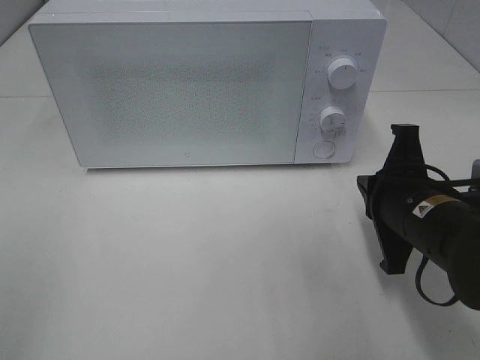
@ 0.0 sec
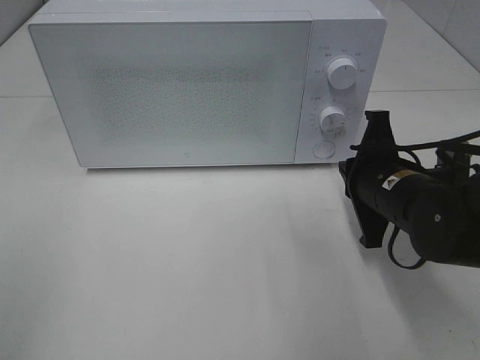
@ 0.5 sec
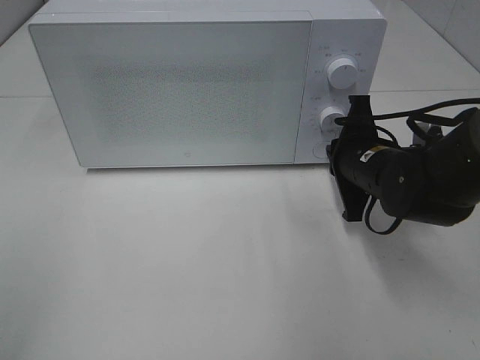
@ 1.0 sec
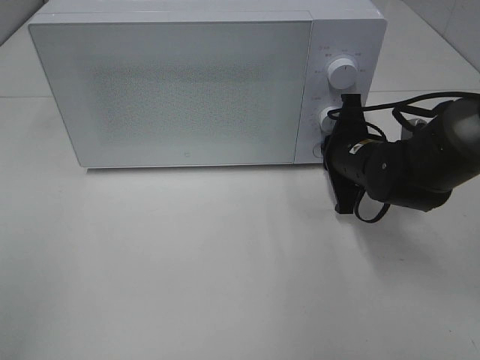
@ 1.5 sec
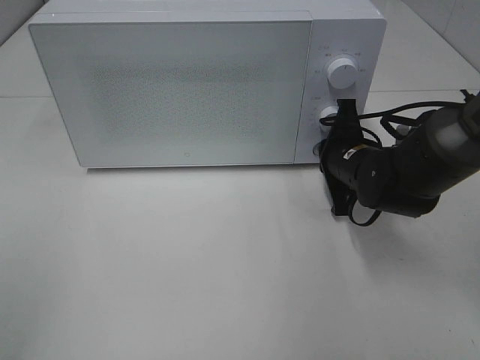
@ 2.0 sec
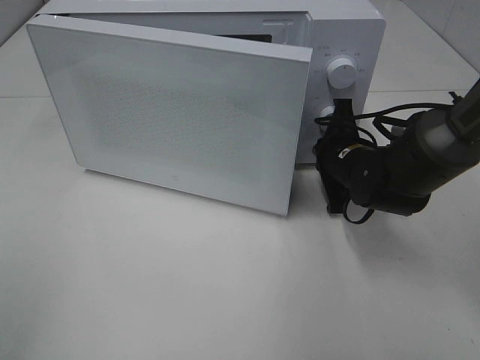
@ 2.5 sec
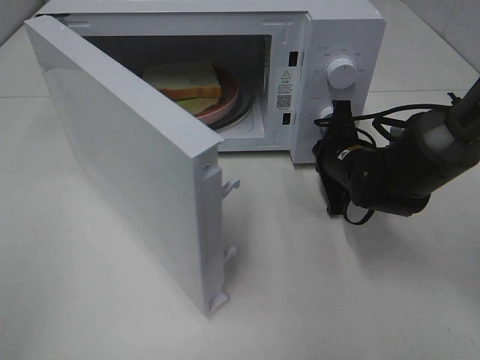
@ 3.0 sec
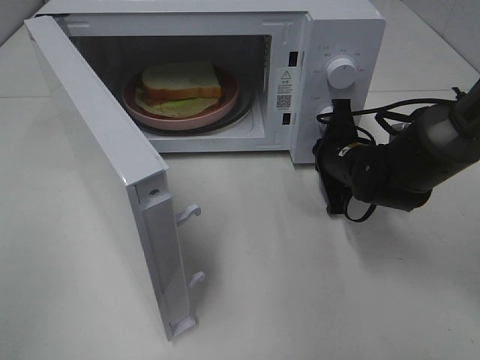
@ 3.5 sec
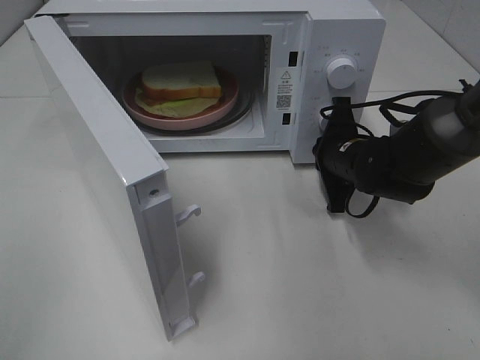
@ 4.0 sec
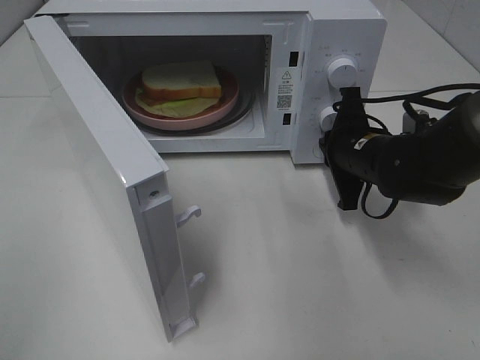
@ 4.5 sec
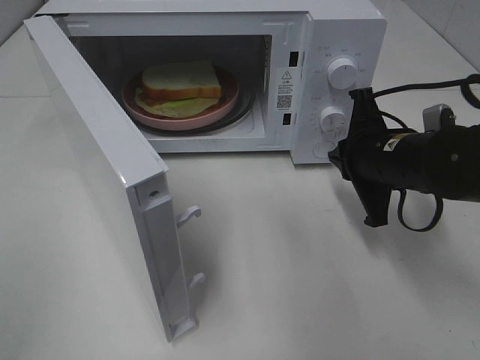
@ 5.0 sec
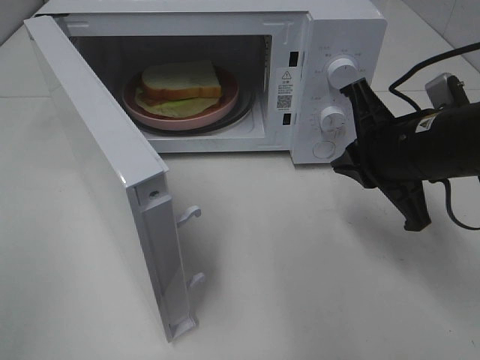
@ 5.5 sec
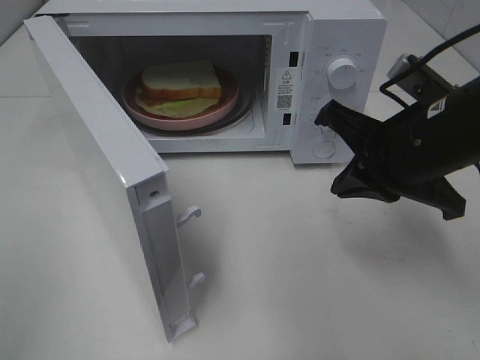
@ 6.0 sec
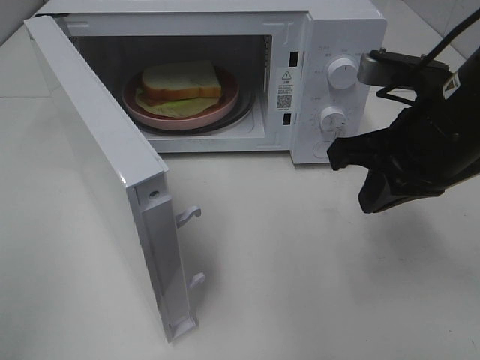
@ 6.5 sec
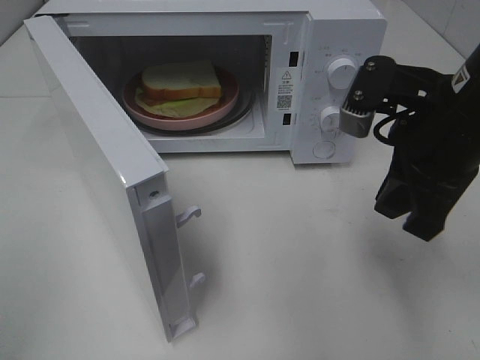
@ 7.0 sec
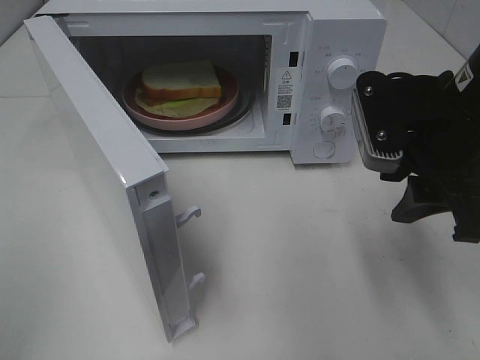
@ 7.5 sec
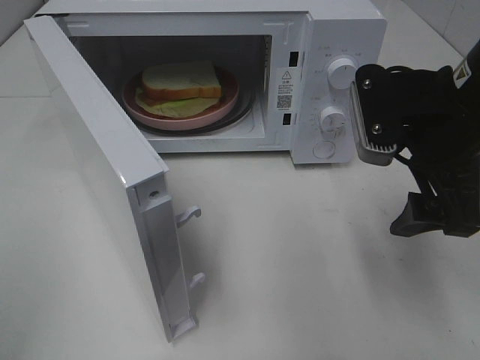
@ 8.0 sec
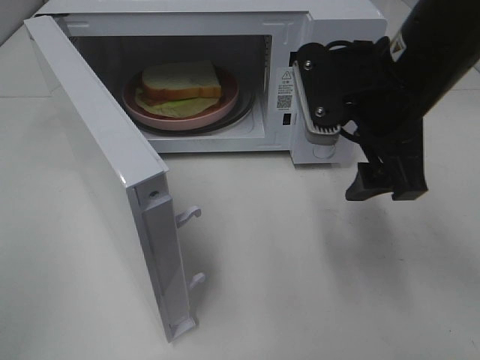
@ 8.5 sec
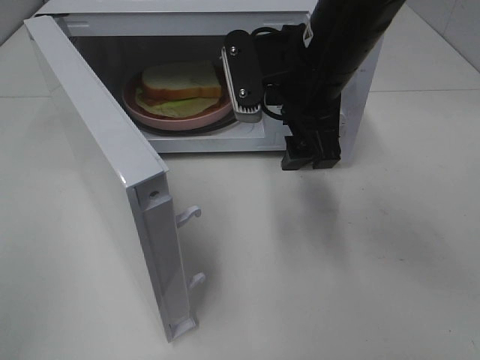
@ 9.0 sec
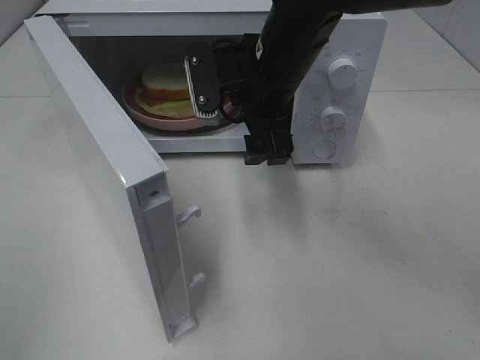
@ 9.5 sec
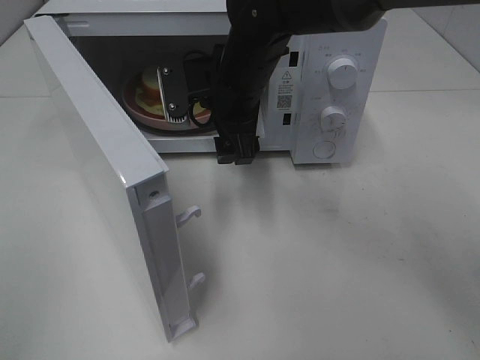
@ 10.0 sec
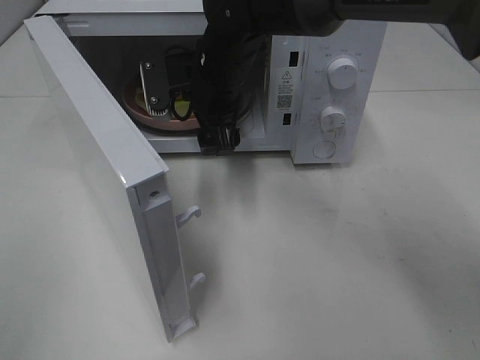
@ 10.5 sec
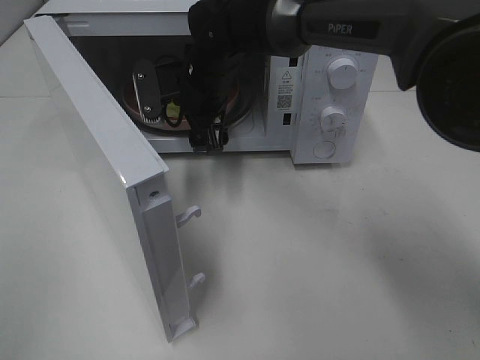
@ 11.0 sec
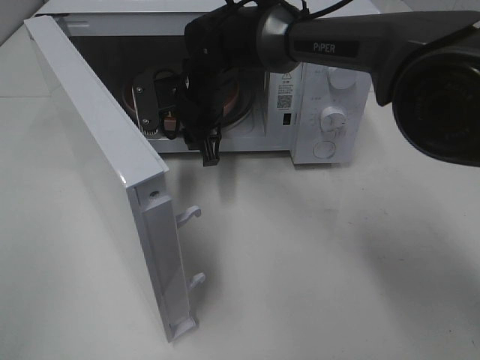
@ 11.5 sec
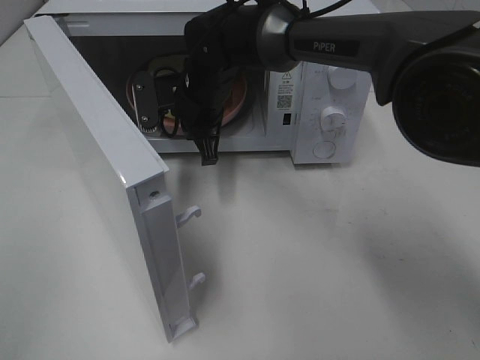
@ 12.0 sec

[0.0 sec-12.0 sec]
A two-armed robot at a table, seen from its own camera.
Task of the whole recording: Heat Sandwich.
Step, 0.0 sec to 4.5 sec: Right hand: press the switch.
Step, 5.0 sec to 11.5 sec: Right hand: grab the plate with the sandwich.
0.0 sec to 2.0 sec: The right gripper moves forward, roughly 15 cm.
4.0 sec to 6.0 sec: The right gripper heads upward and backward, covering approximately 15 cm.
6.0 sec to 8.0 sec: The right gripper opens up.
8.0 sec to 10.0 sec: The right gripper heads to the left and forward, covering approximately 20 cm.
10.0 sec to 12.0 sec: The right gripper shifts by about 10 cm, and closes up.

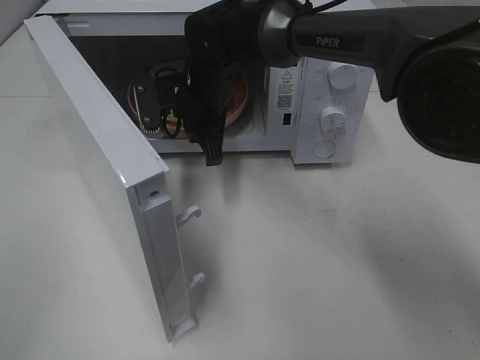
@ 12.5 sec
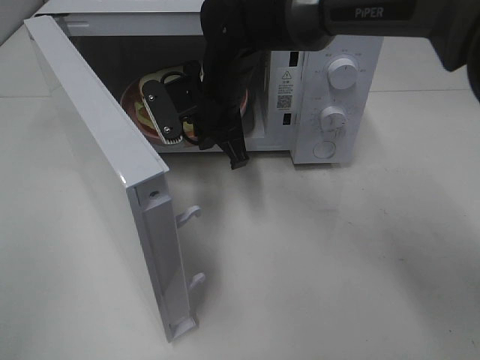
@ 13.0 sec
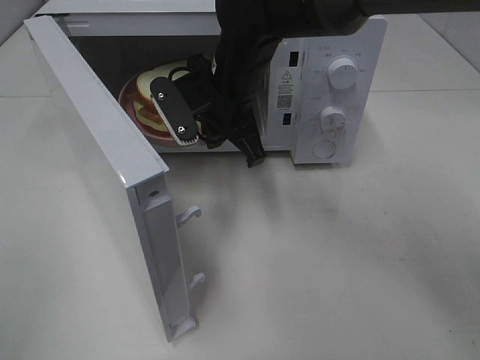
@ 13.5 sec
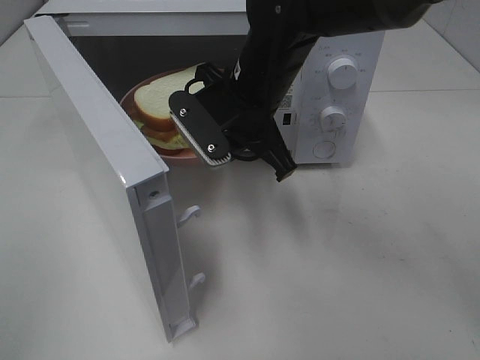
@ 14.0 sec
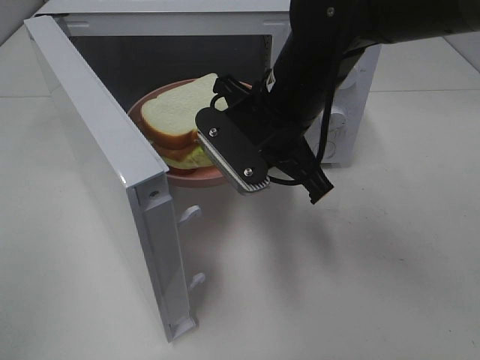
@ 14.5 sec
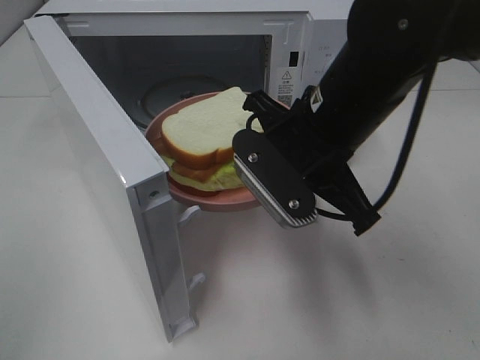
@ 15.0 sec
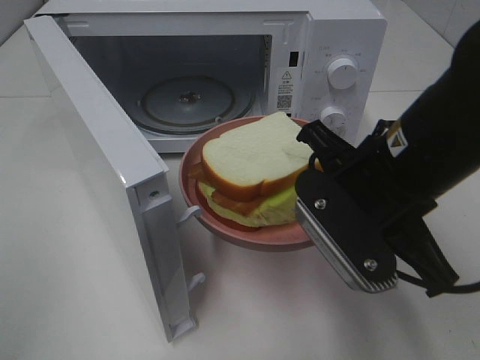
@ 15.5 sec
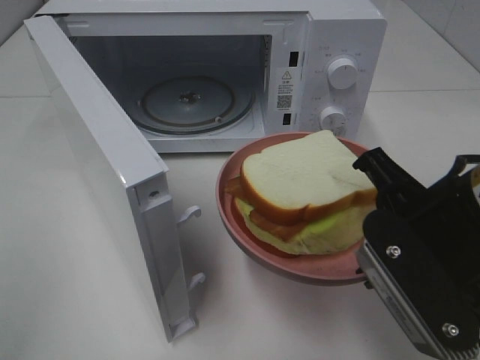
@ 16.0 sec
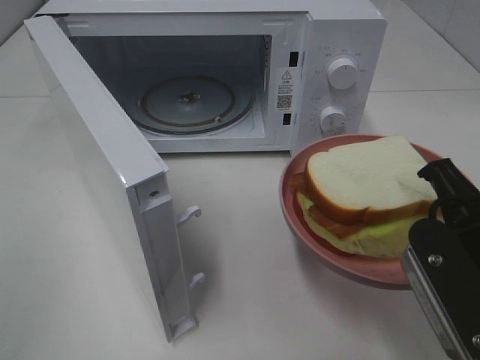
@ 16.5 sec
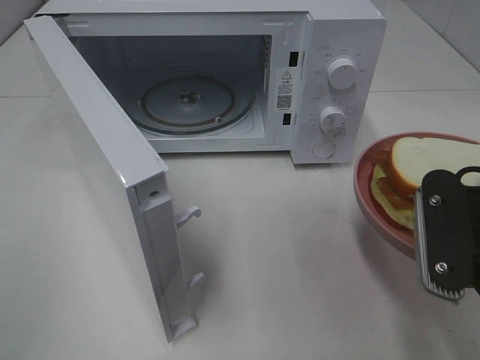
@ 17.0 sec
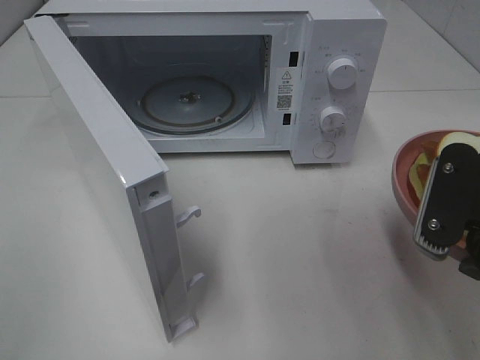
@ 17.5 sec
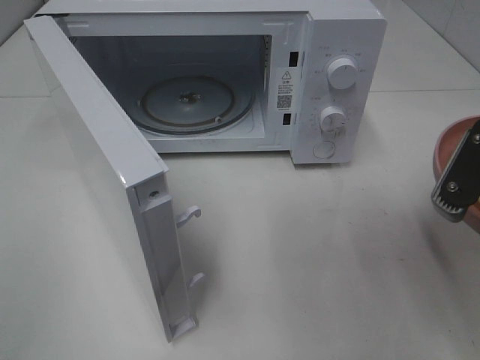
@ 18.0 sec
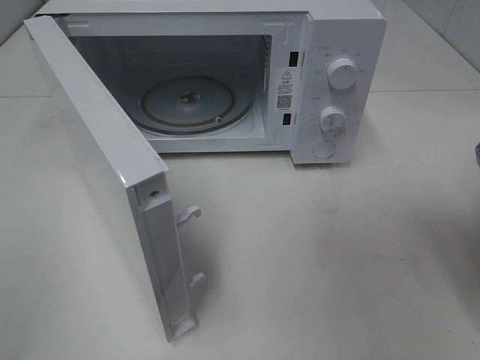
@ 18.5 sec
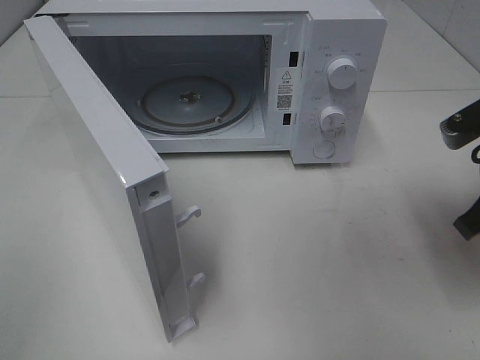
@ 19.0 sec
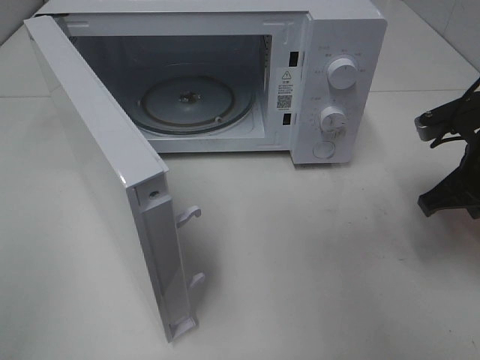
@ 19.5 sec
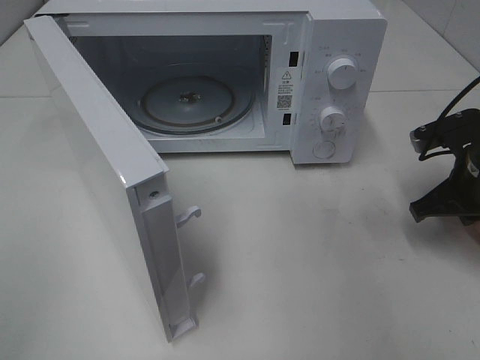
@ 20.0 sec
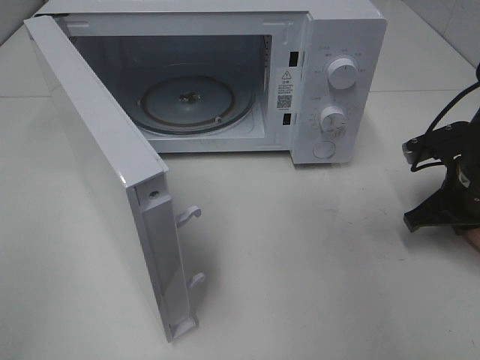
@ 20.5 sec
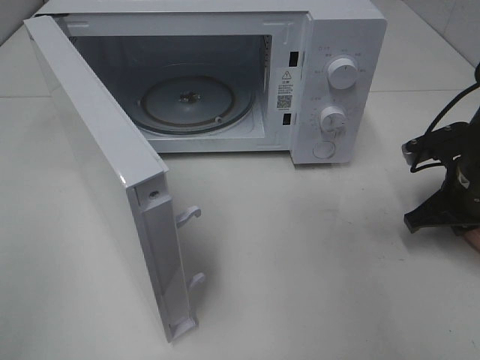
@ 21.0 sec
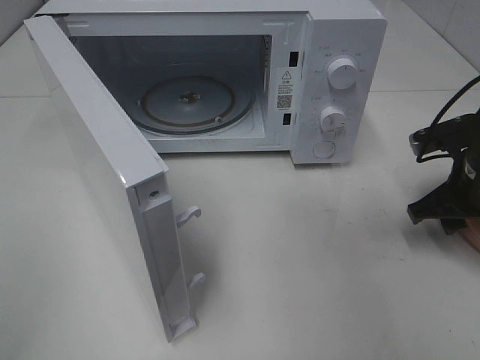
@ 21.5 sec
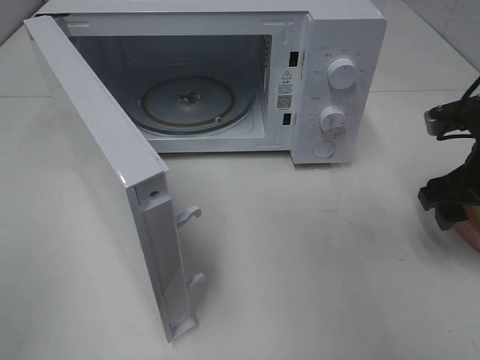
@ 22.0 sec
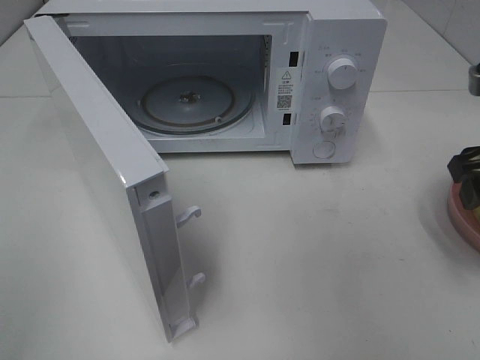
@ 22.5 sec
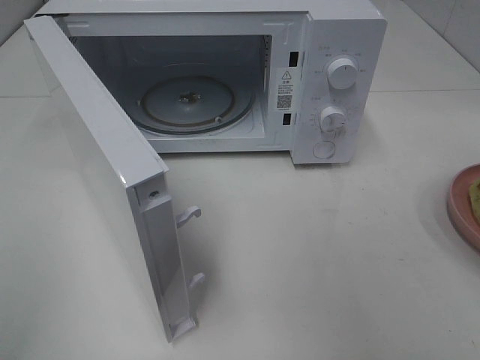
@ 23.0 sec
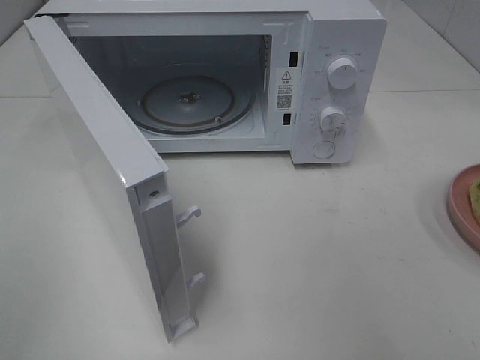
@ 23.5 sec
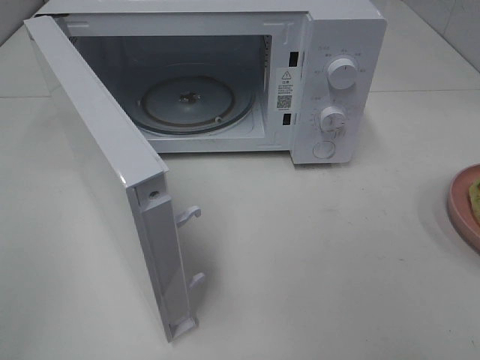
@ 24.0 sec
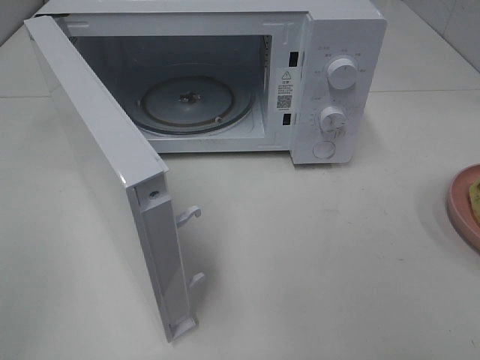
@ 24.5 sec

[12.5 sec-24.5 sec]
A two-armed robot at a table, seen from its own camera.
Task of the whole recording: Heat Sandwich.
Step, 12.5 sec to 22.0 sec: Right hand: place the plate on the table.
12.5 sec to 14.5 sec: The right gripper is displaced backward, to the right and upward by roughly 15 cm.
14.5 sec to 16.5 sec: The right gripper moves backward and to the right, some 20 cm.
16.5 sec to 18.5 sec: The right gripper heads to the right, covering some 10 cm.
18.5 sec to 20.5 sec: The right gripper moves forward and downward, some 15 cm.
20.5 sec to 22.5 sec: The right gripper travels upward and backward by about 15 cm, and opens up.
22.5 sec to 24.5 sec: The right gripper shifts some 25 cm backward.

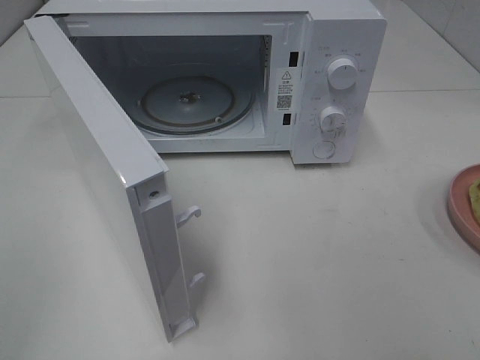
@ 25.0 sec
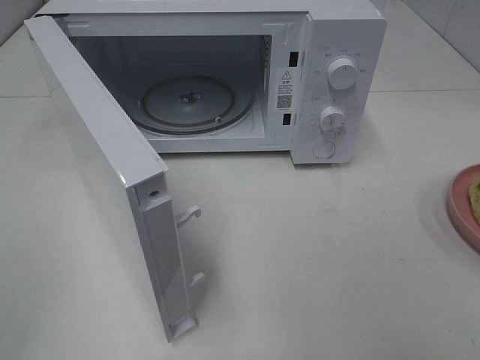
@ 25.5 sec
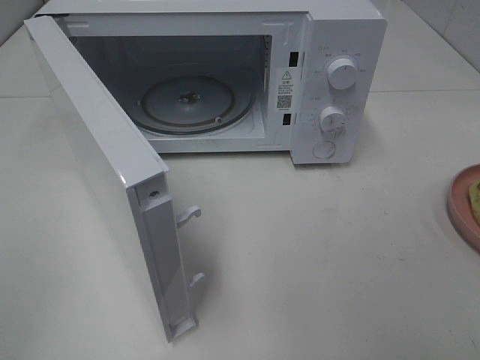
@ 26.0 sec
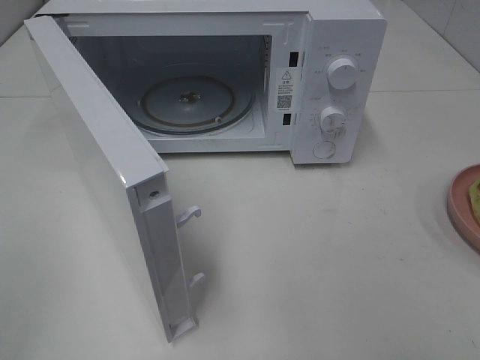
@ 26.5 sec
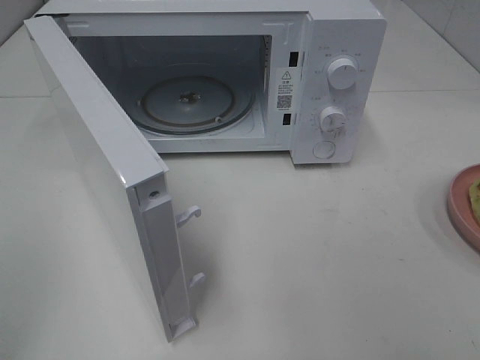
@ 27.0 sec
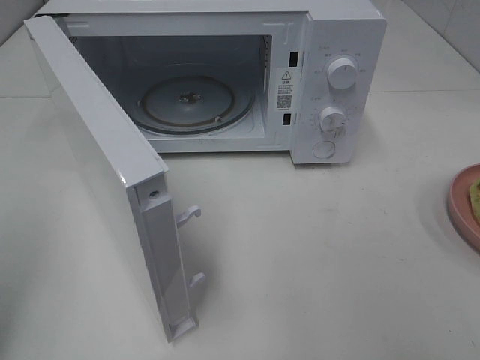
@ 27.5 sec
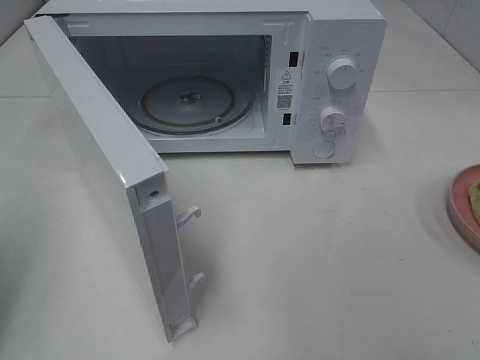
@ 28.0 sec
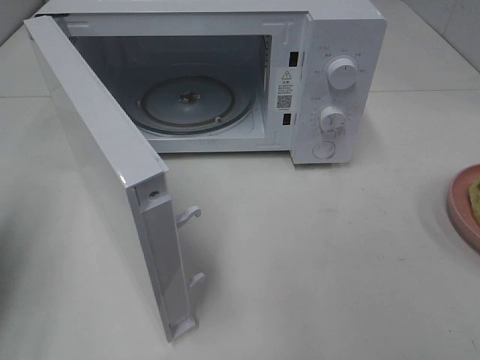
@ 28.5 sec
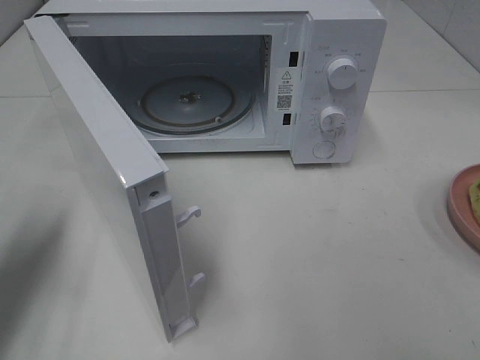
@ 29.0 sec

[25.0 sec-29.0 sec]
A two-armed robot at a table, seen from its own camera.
Task of the whole recording: Heat Sandwich.
27.0 sec to 29.0 sec: The left gripper heads forward and downward, covering about 20 cm, and closes its fingers.
